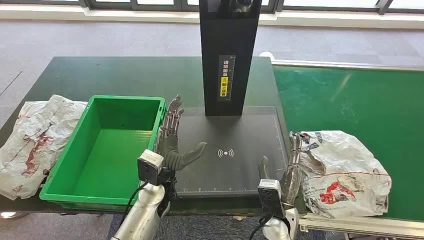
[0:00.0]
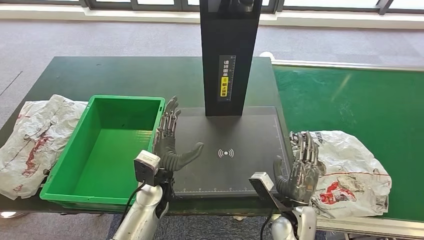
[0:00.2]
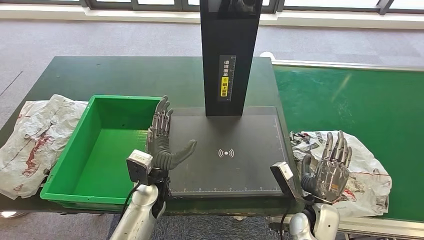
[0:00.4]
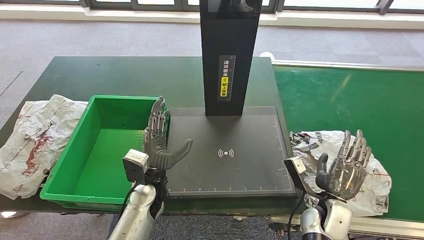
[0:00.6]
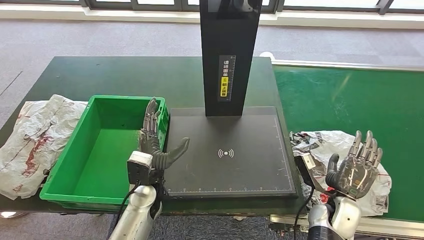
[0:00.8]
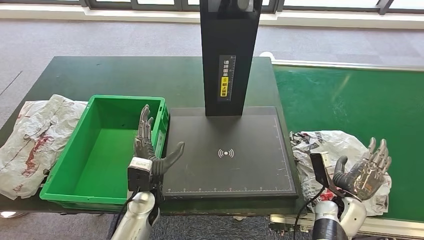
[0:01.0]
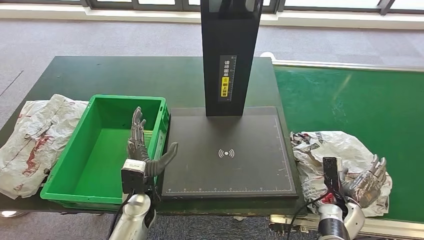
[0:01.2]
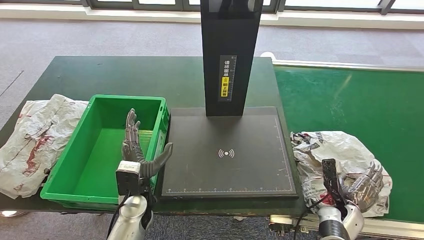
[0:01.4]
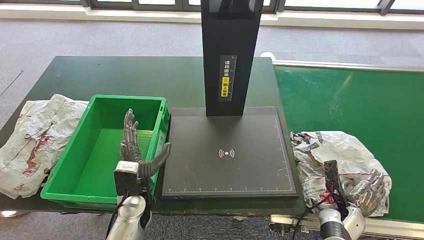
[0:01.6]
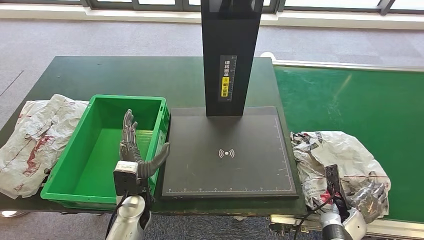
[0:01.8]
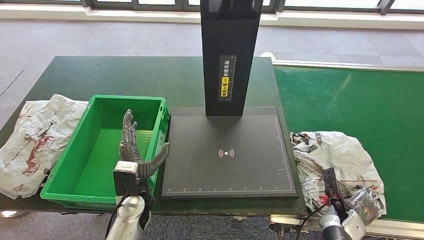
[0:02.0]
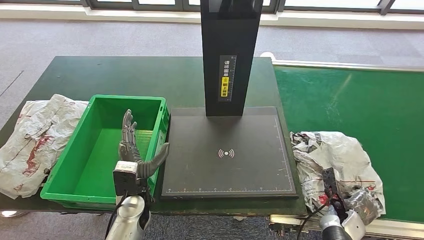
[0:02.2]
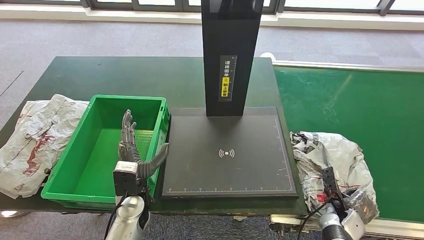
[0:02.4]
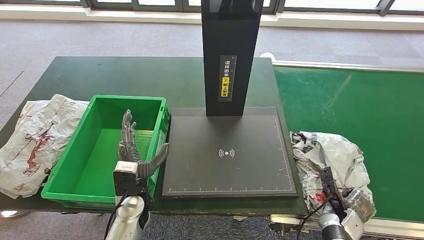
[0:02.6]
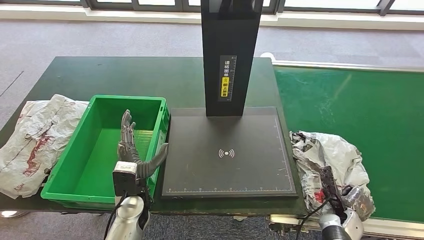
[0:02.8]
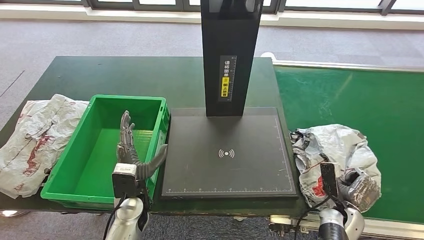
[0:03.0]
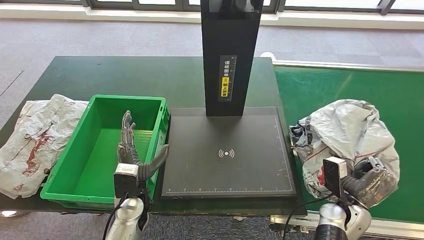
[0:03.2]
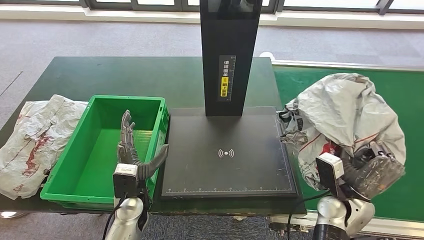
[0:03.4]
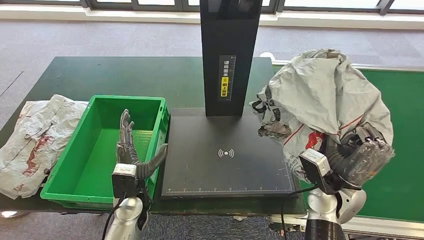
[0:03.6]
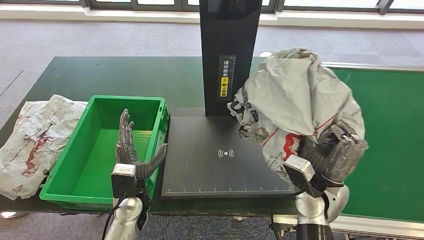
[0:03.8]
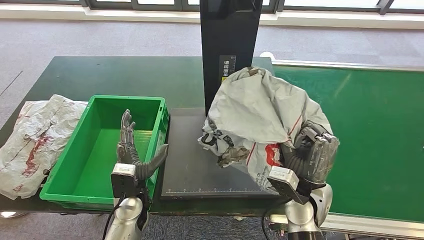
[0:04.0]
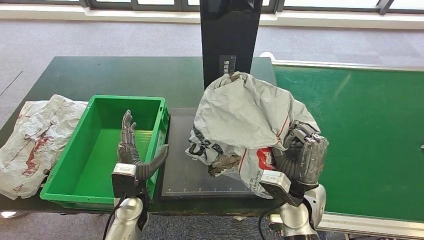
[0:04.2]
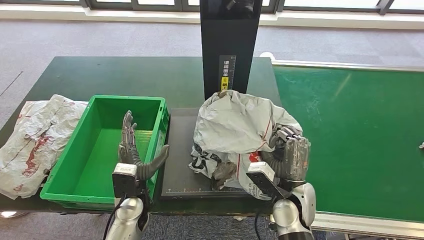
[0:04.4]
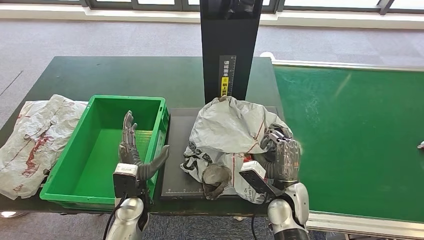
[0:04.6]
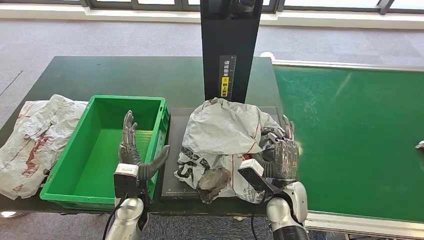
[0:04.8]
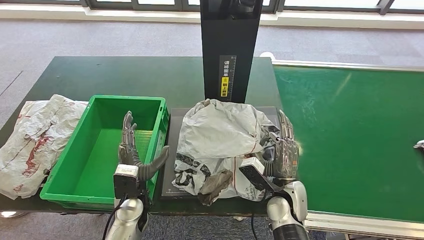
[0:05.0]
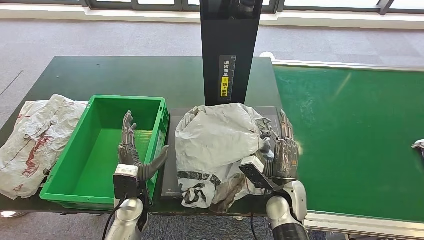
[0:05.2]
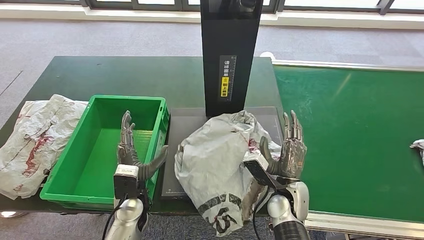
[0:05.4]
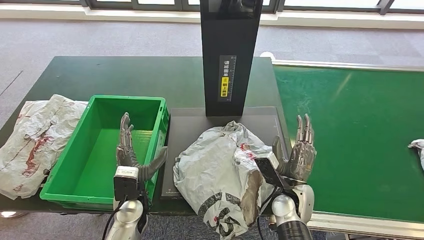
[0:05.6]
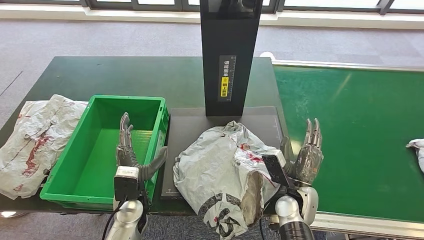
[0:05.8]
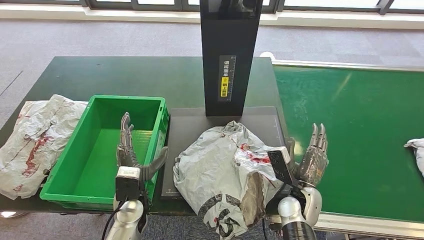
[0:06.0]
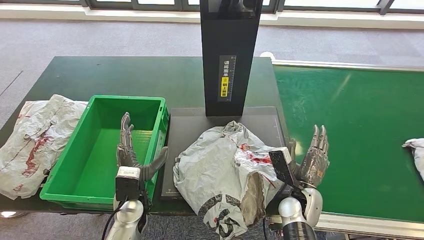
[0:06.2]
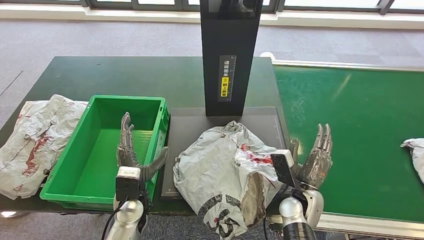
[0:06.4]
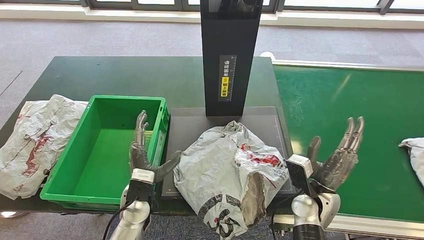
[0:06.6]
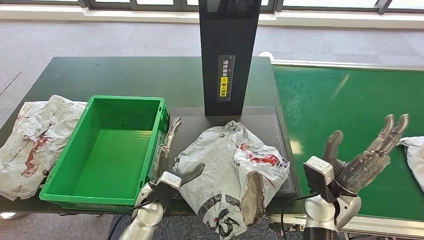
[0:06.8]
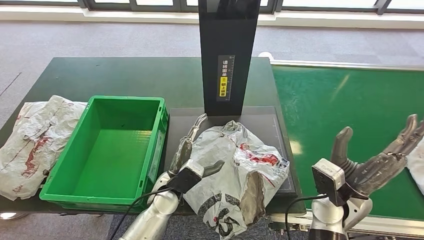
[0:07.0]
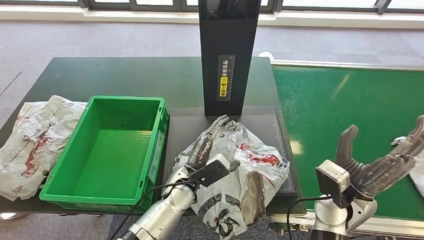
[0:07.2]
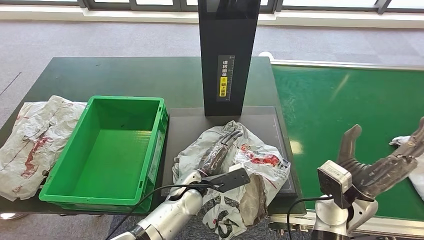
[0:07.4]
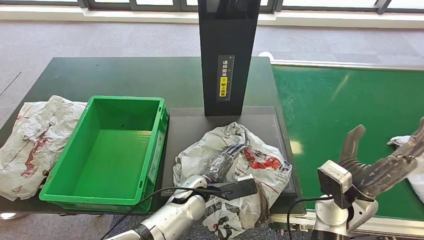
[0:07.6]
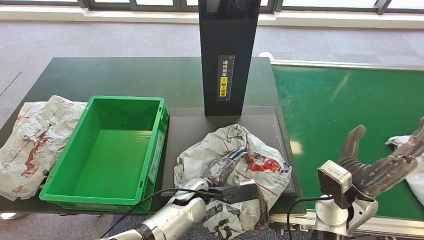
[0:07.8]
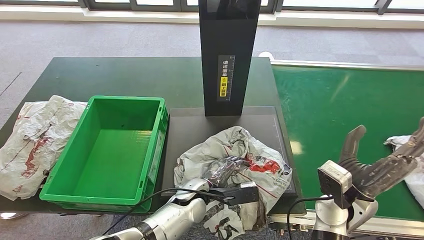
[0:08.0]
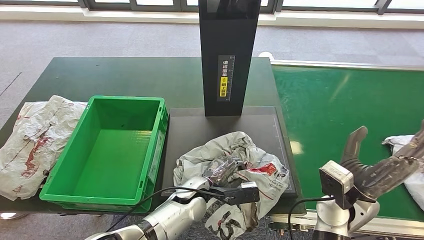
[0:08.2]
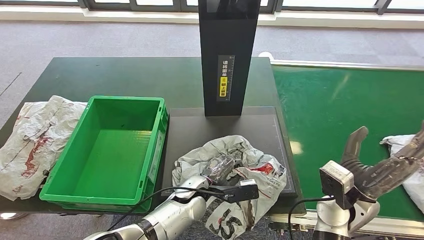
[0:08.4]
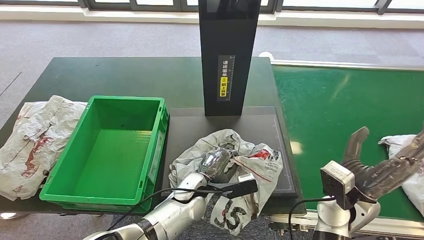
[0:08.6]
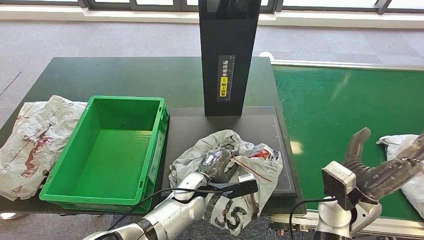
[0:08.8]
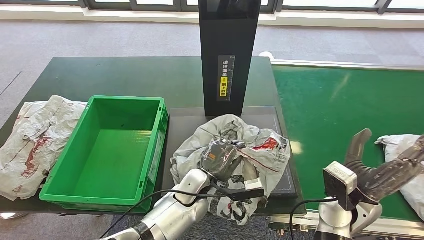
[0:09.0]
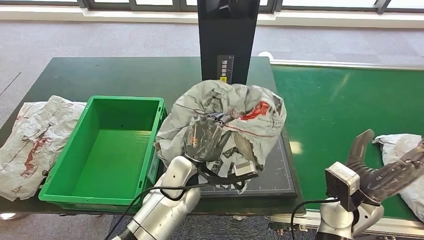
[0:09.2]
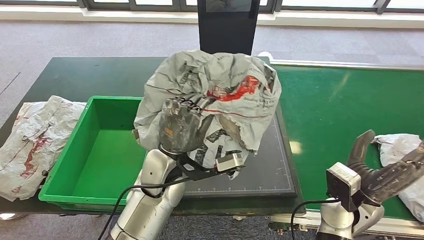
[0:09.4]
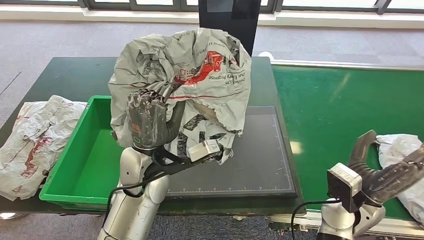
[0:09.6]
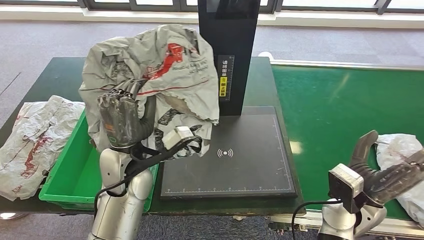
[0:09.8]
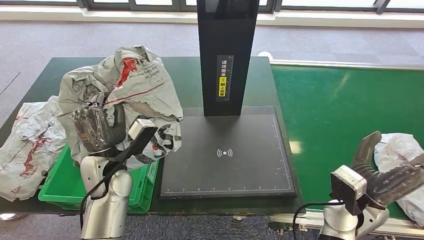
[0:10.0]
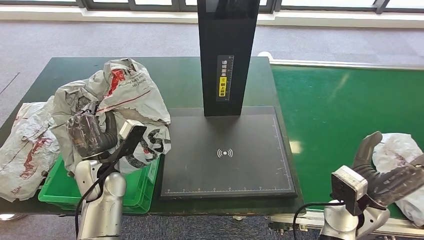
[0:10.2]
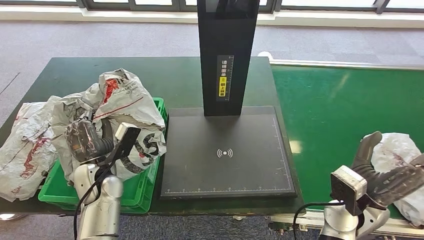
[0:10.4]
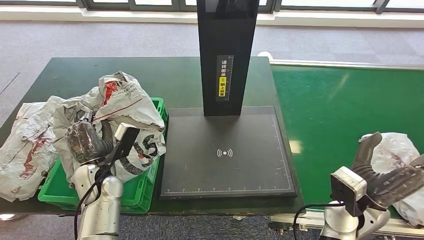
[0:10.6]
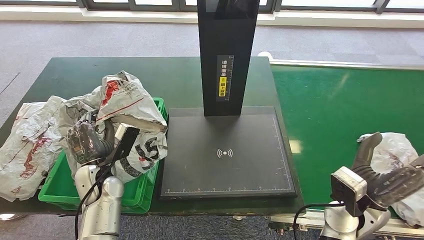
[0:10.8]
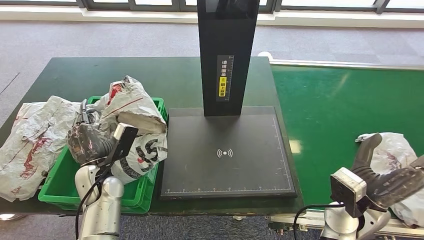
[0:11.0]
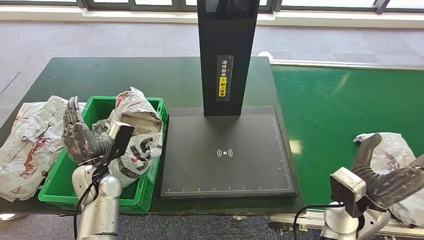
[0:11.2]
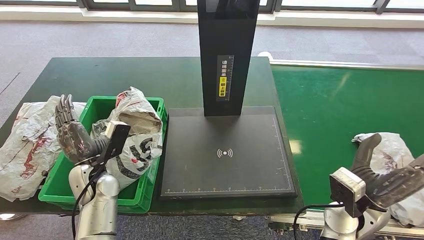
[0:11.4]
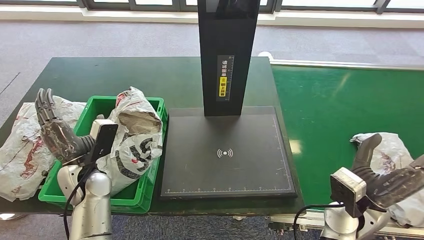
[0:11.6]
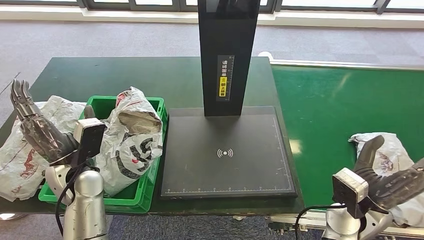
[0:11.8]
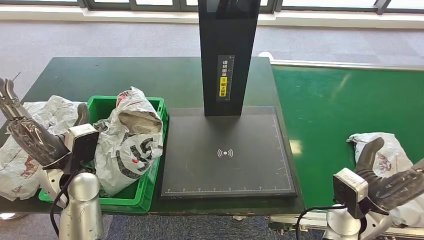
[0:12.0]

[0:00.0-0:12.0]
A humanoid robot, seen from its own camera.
Step, 0:00.0 to 0:03.4: Take the parcel off the conveyor belt.
Step, 0:03.6 to 0:06.2: Place the parcel onto the inbound machine.
Step, 0:06.4 to 0:09.4: Pick up the parcel from the inbound machine.
Step, 0:09.6 to 0:11.8: Put the parcel inside the courier box.
0:01.6 to 0:03.0: The hands move only a little.
0:03.0 to 0:04.4: The right hand moves to the left and upward, roughly 20 cm.
0:04.4 to 0:06.0: The right hand goes approximately 5 cm downward.

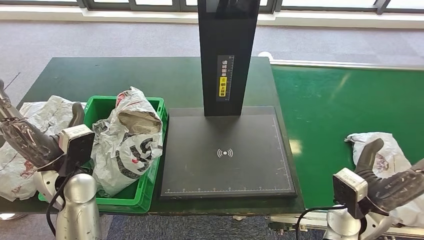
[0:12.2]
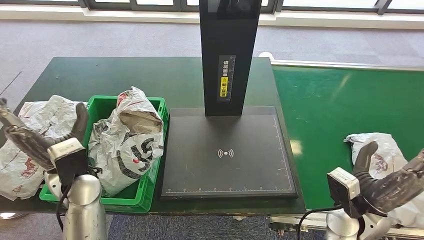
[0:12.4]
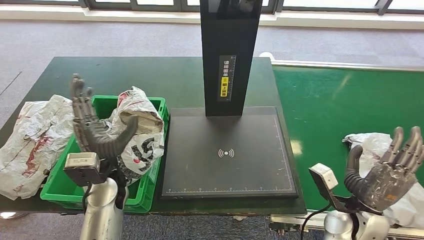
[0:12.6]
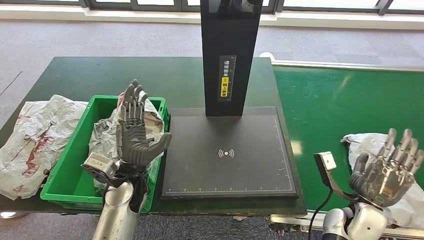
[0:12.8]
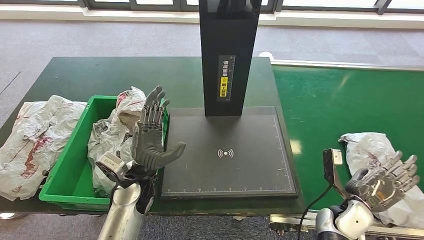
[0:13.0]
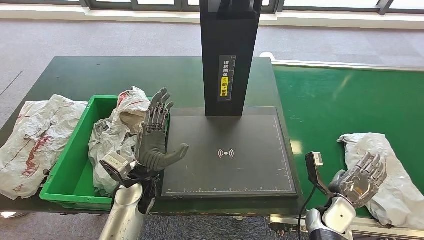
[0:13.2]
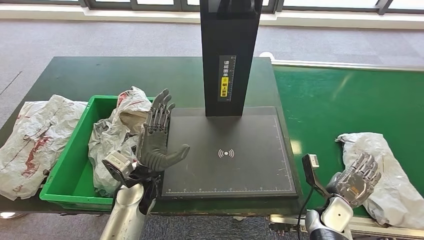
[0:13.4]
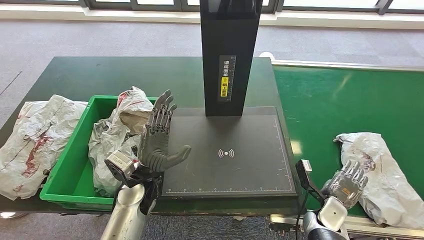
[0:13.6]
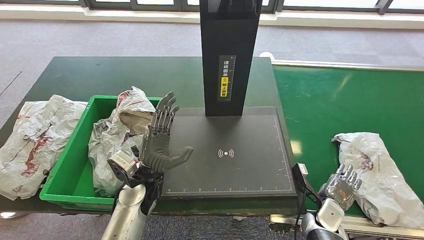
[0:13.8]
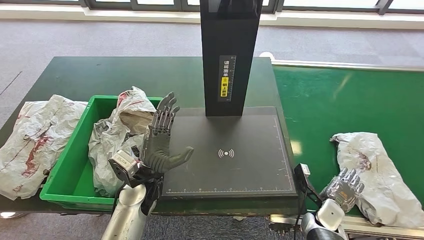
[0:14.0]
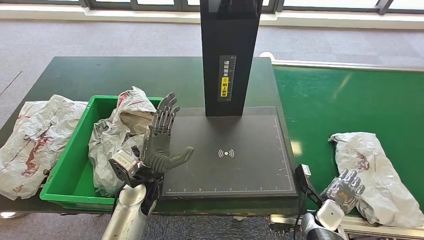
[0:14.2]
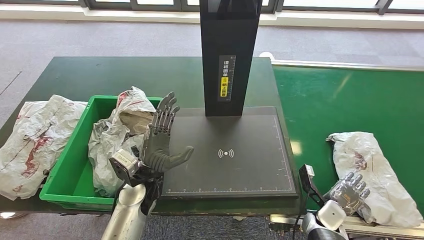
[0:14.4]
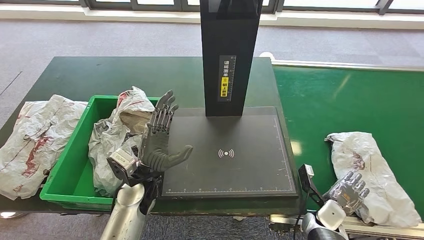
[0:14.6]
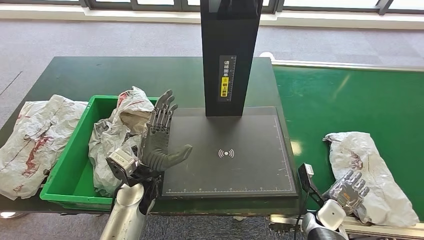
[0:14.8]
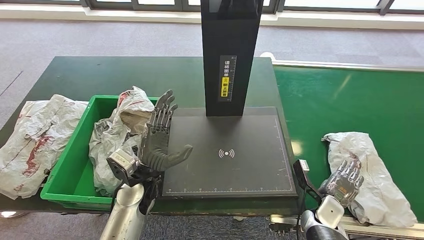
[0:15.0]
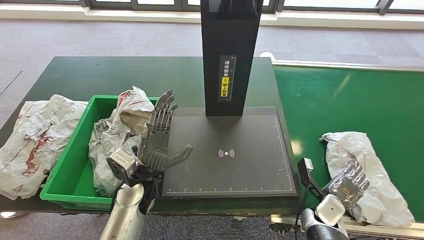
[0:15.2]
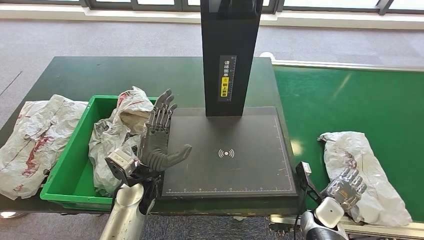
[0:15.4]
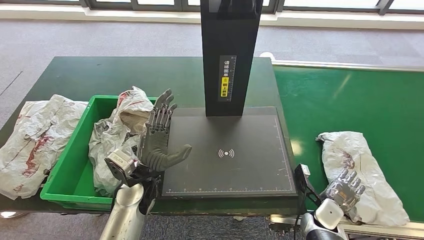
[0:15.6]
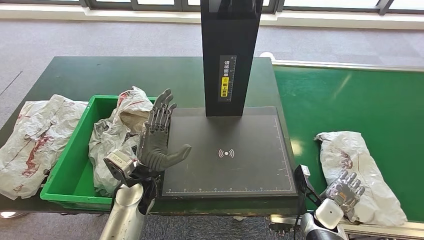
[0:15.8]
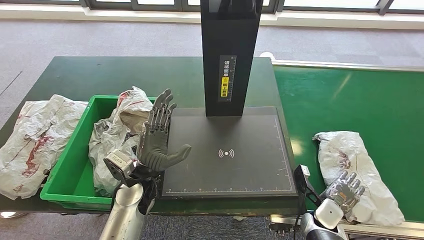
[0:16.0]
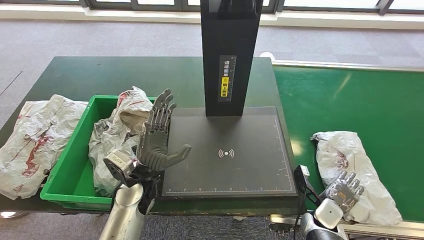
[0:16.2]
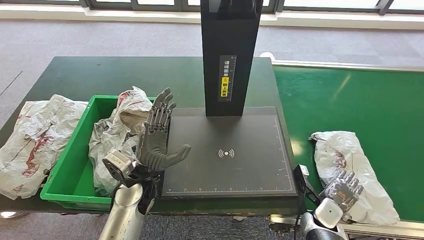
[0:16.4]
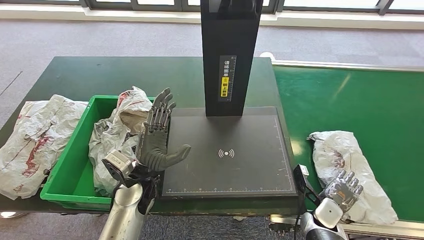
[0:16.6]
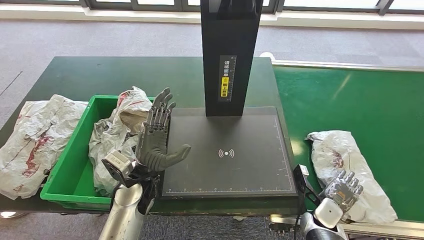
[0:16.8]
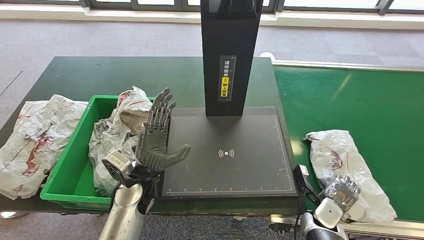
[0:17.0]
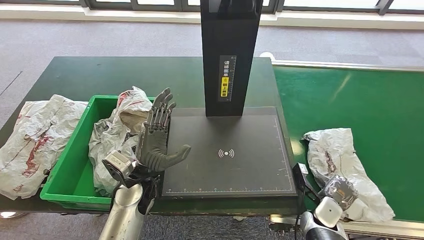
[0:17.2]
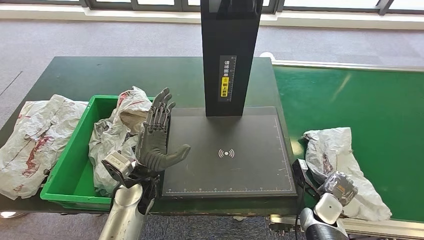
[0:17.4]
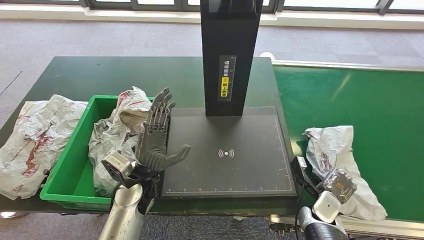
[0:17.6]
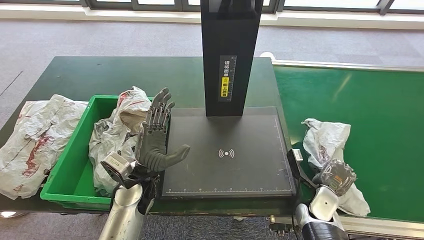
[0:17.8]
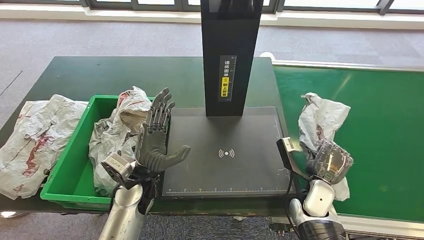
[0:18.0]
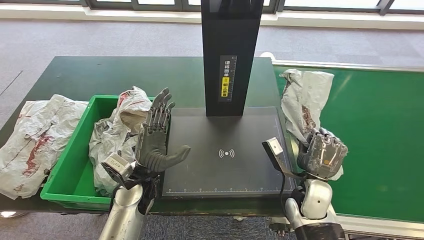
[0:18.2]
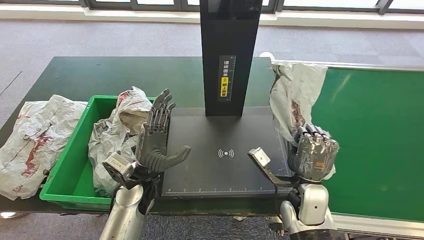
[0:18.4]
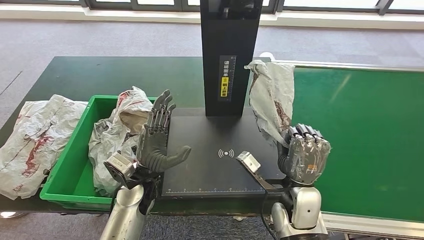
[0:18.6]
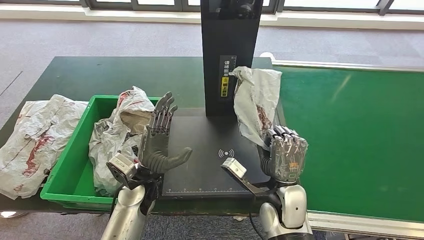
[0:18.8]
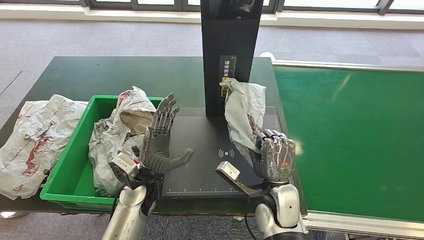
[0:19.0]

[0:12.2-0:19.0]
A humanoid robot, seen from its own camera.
Step, 0:12.2 to 0:18.2: Pick up the parcel from the conveyor belt.
0:13.6 to 0:17.6: The hands move only a little.
0:17.6 to 0:19.0: The right hand is displaced to the left and upward by some 20 cm.
